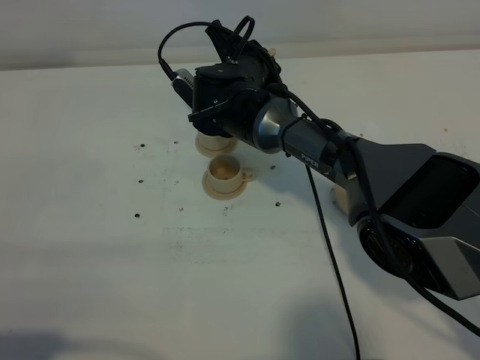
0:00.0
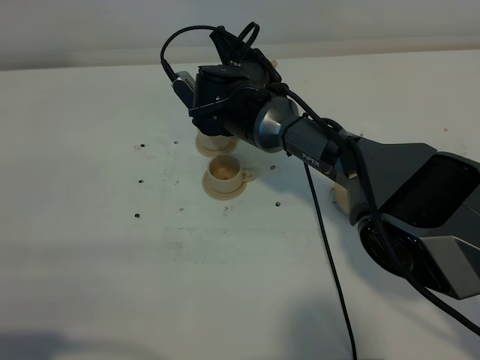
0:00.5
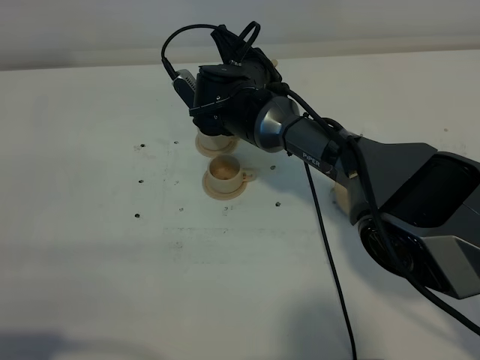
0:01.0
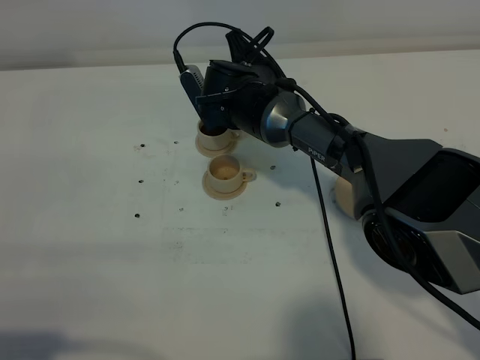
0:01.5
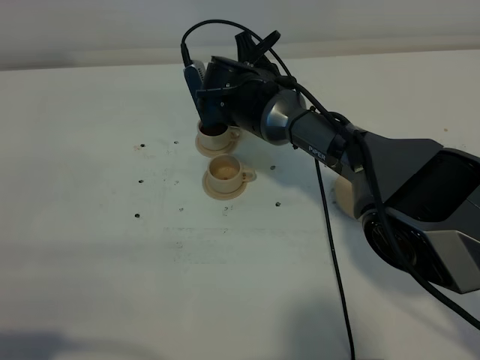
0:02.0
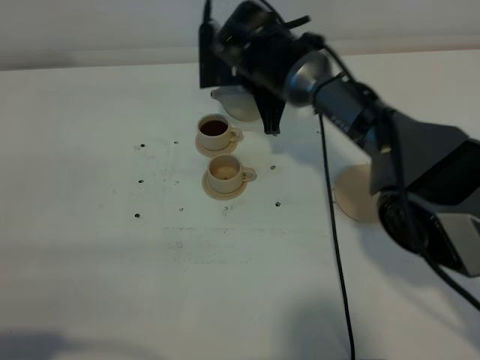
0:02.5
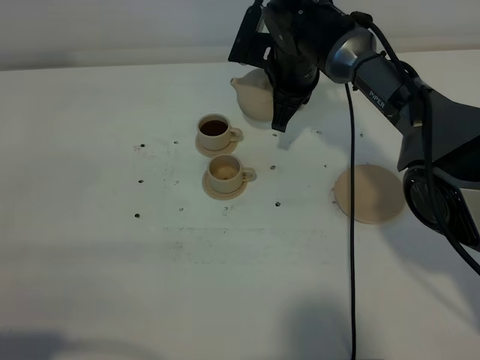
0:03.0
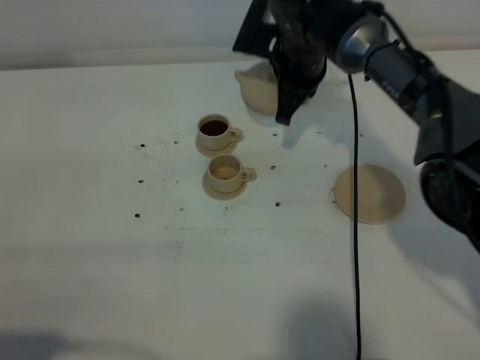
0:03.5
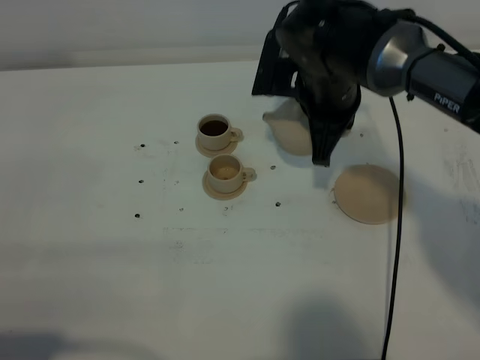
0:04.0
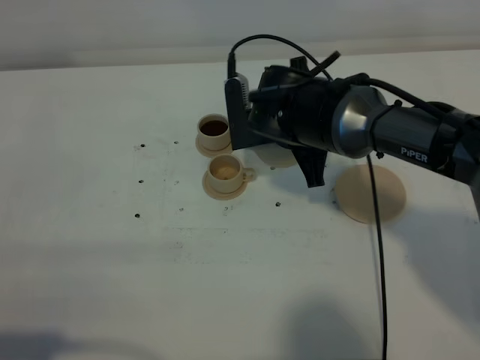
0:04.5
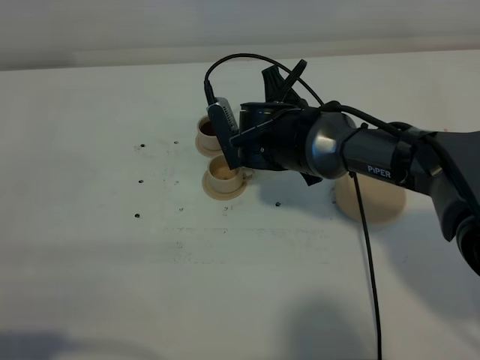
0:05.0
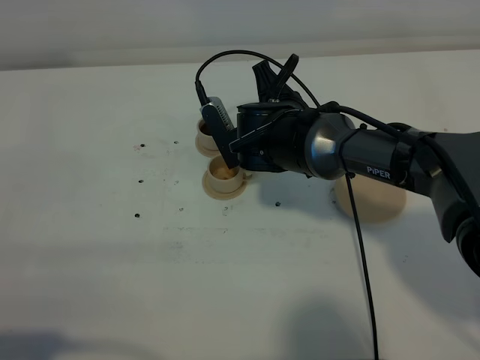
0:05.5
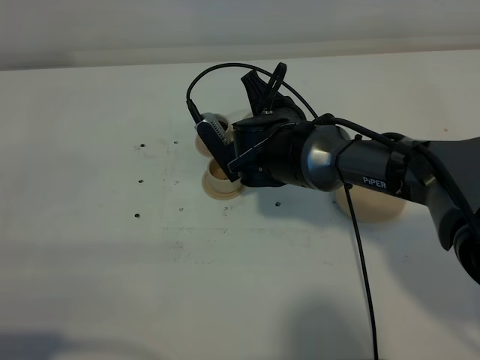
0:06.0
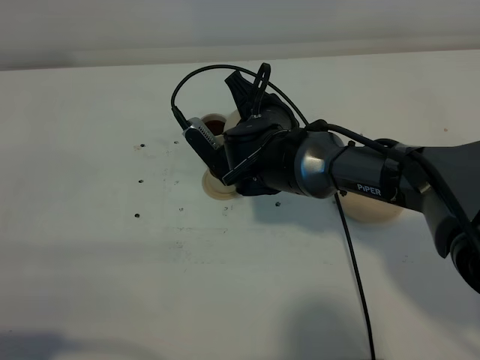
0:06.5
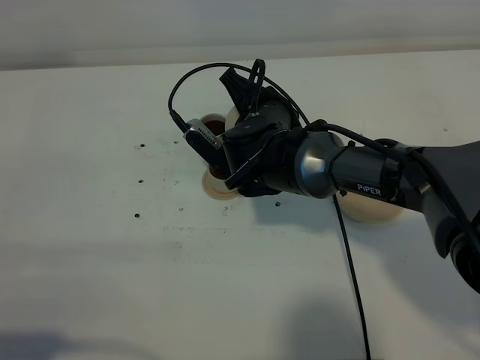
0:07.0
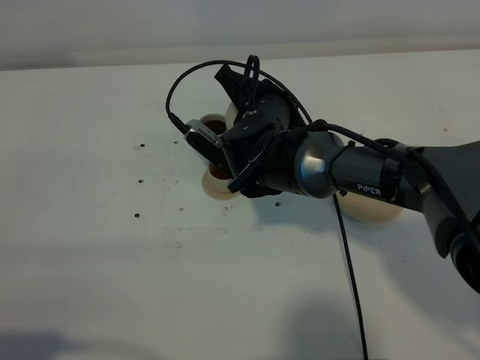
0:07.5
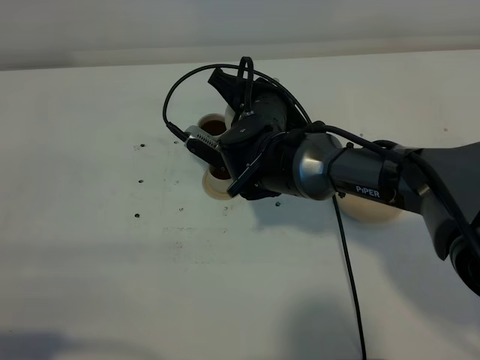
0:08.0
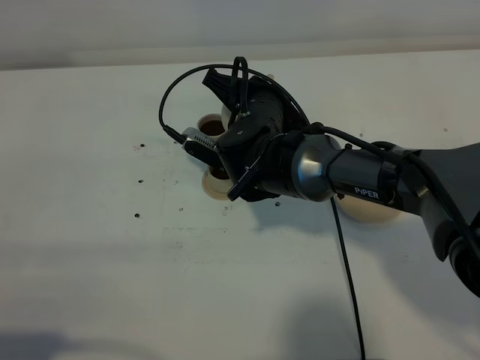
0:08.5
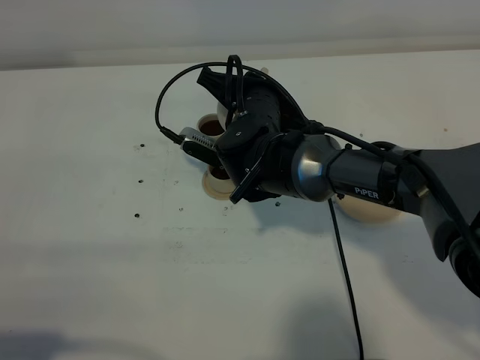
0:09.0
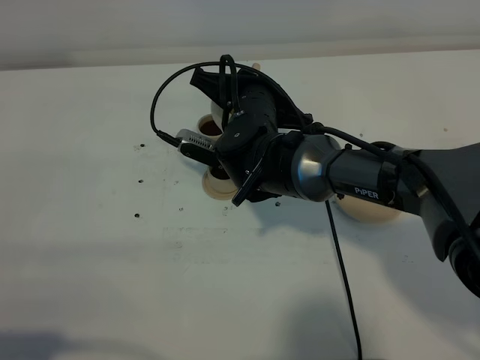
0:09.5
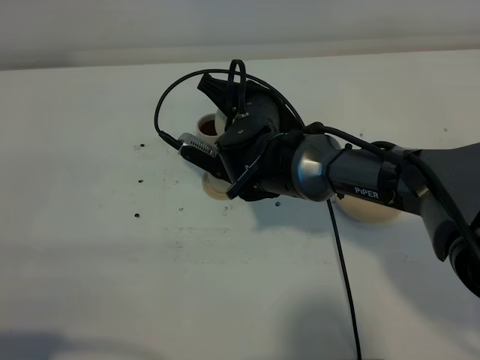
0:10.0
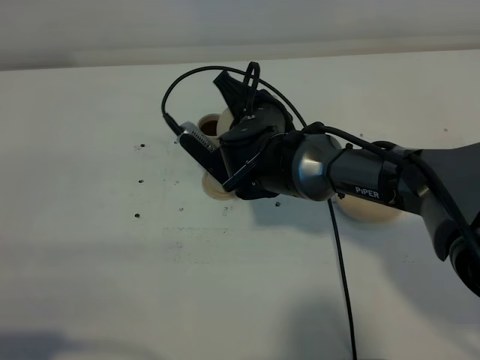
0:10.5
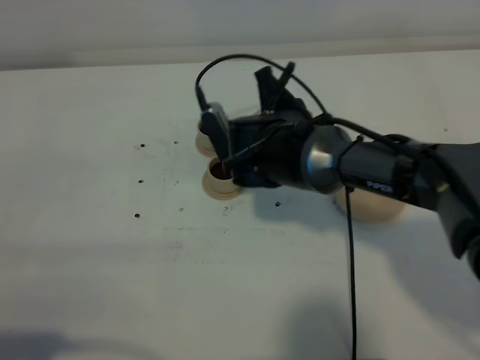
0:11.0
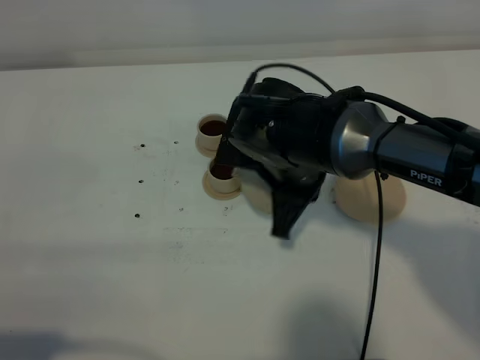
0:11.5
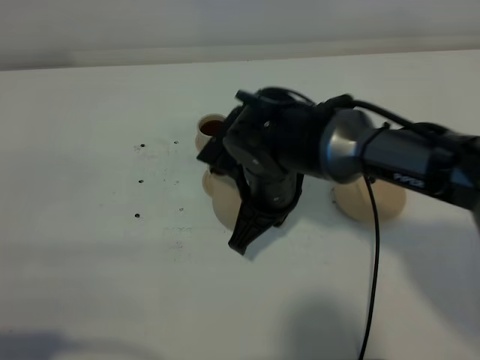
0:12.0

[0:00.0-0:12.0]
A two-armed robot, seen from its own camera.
Task of the whole recording: grasp the brown teapot and pour the tea into the two brown teacups one by one, put the brown teapot back in its original place.
Step, 0:00.0 to 0:02.0: Pour tea into the teacup with the right gripper.
Step, 0:02.5 to 0:11.0: Pour tea into the teacup with the right gripper.
0:02.0 to 0:04.0: The right gripper goes some 10 cm to the right, backward and upward.
0:04.0 to 0:06.0: The right gripper goes approximately 10 cm downward and to the left.
0:08.0 to 0:10.0: The grippers move only a little.
0:10.0 to 0:12.0: The right gripper moves backward, roughly 5 cm.

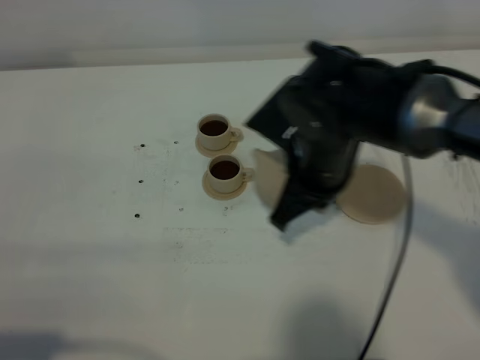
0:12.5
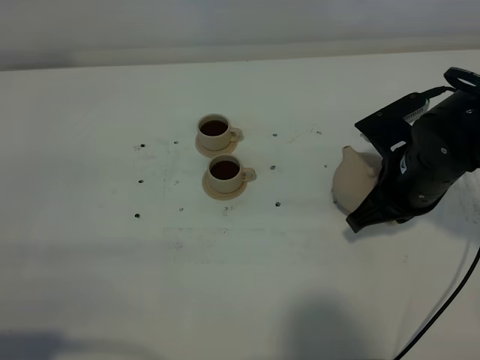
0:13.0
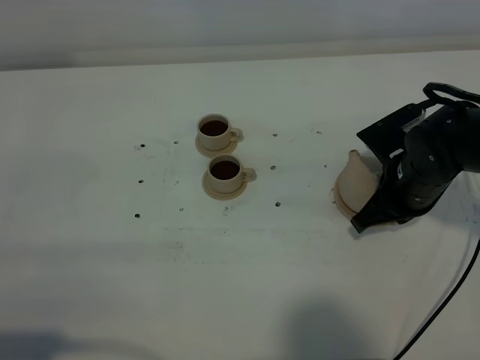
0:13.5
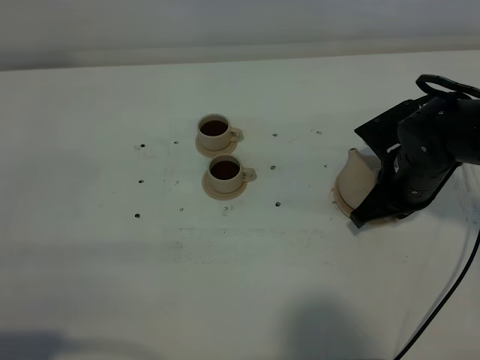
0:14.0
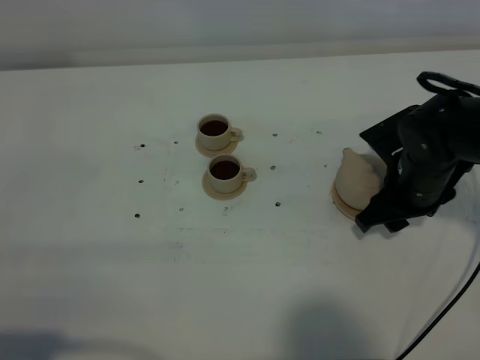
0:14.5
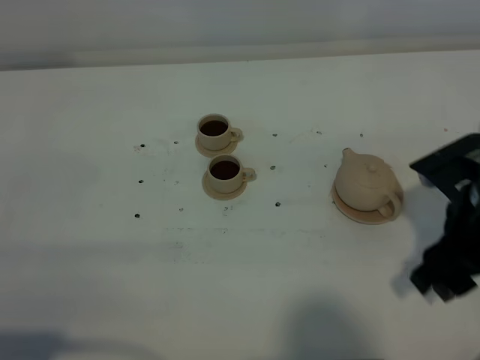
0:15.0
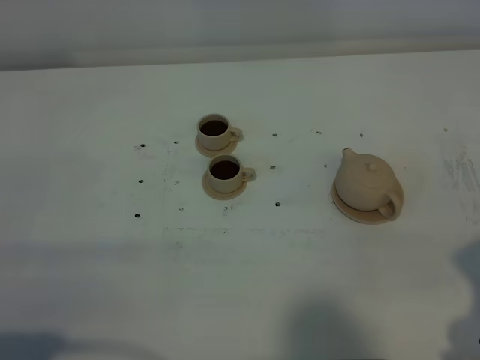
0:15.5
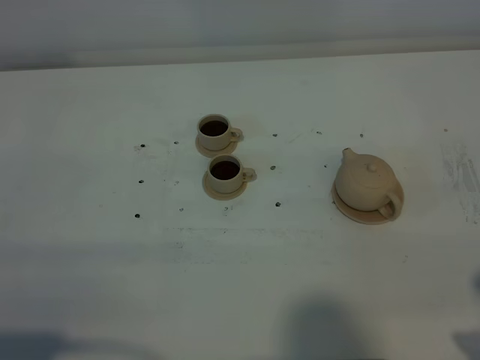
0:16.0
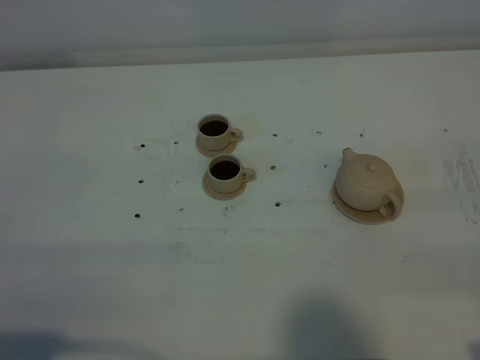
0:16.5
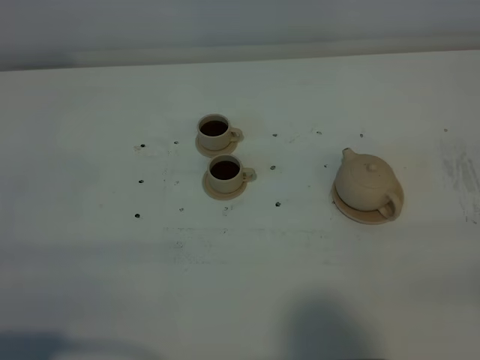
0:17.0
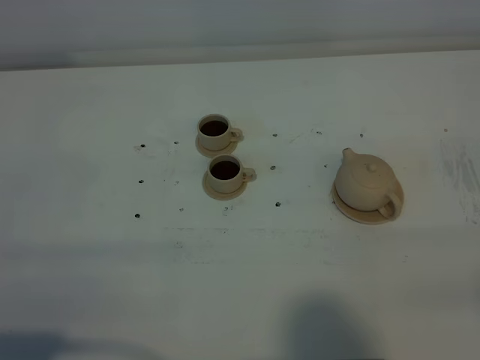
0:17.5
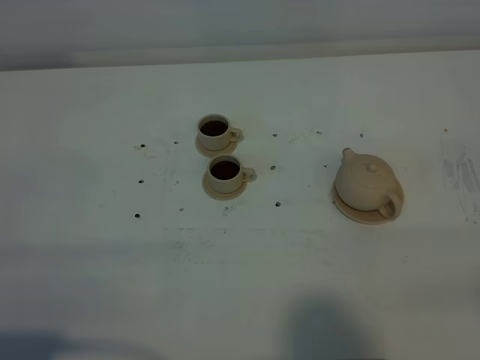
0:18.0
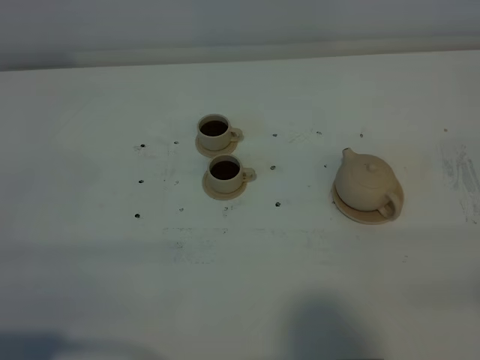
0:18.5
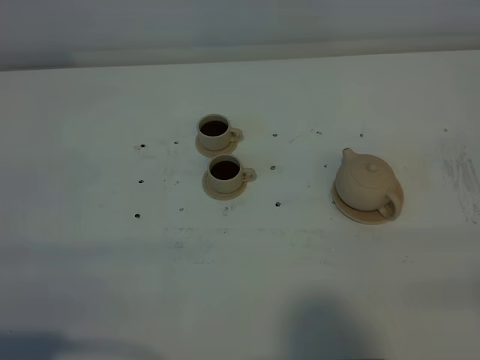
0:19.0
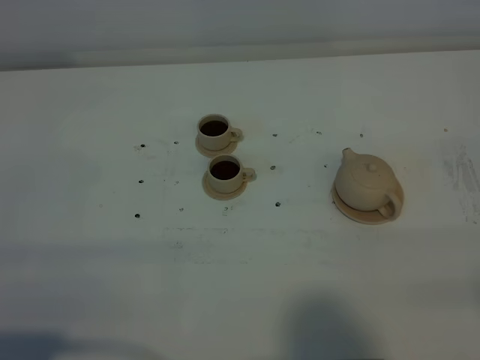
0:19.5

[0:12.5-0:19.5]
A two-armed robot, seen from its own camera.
Task of the whole recording: grasp the brown teapot and pour the tea into the two brown teacups one by one, put the brown teapot back in its original place.
0:12.5 to 0:14.5: The right gripper is displaced to the right and downward by about 15 cm, and opens its fingers.
0:14.5 to 0:16.0: The right gripper heads backward and upward, covering roughly 25 cm.
0:17.5 to 0:19.5: Neither gripper changes place.

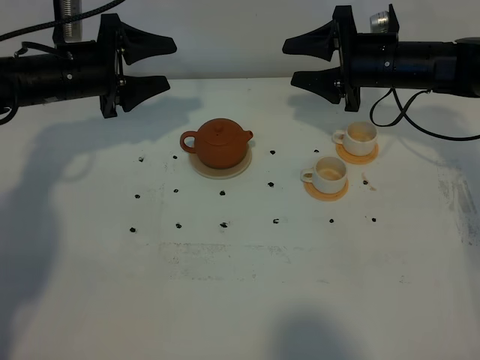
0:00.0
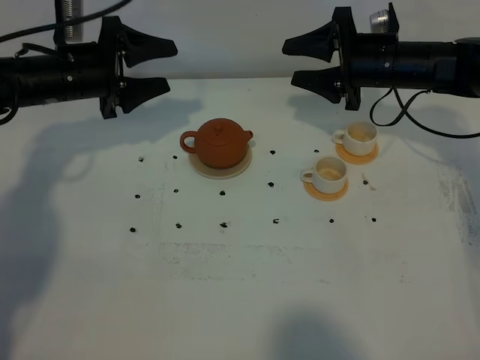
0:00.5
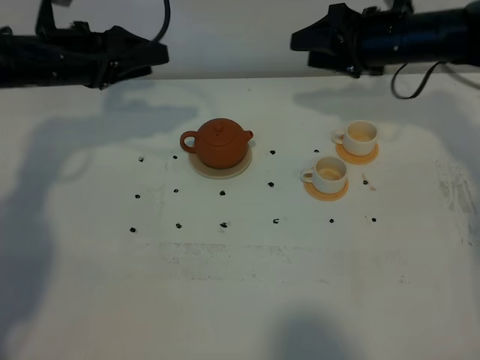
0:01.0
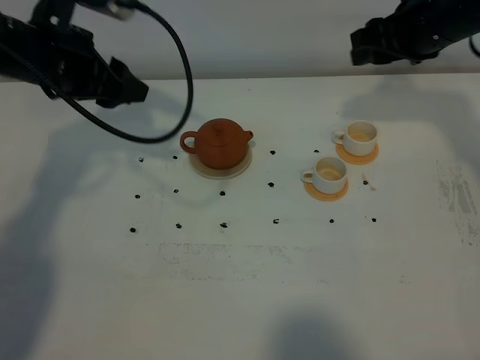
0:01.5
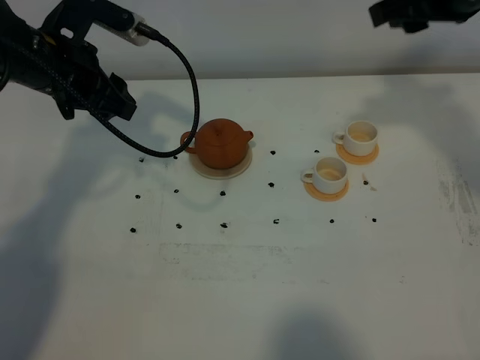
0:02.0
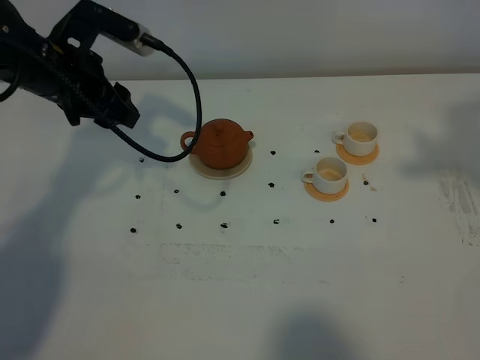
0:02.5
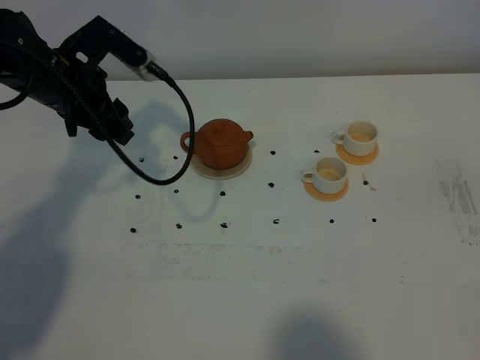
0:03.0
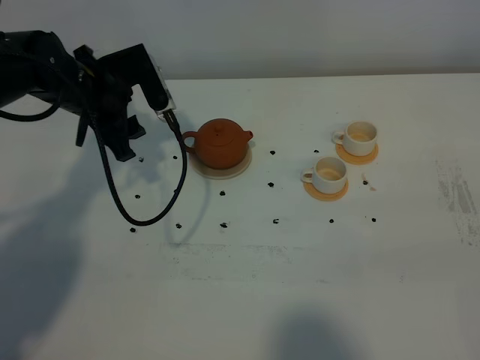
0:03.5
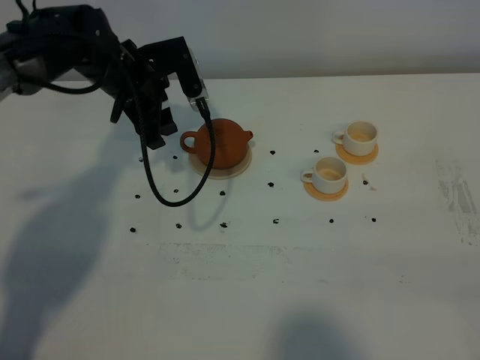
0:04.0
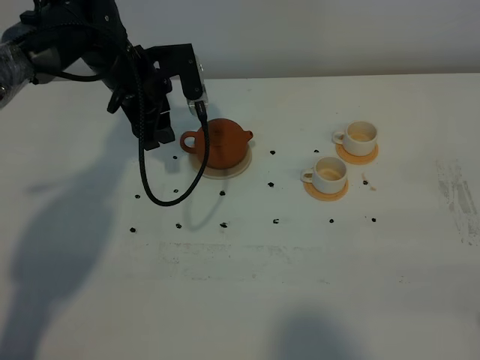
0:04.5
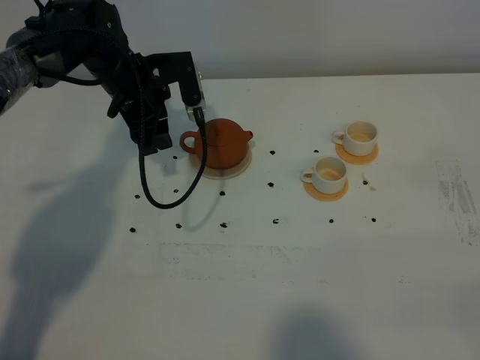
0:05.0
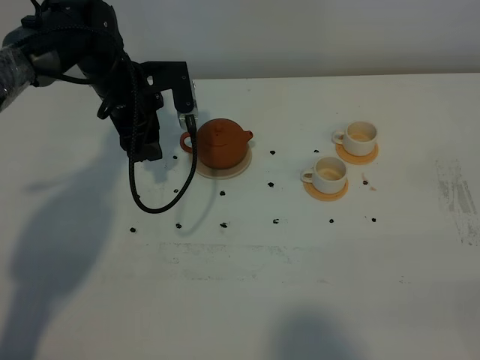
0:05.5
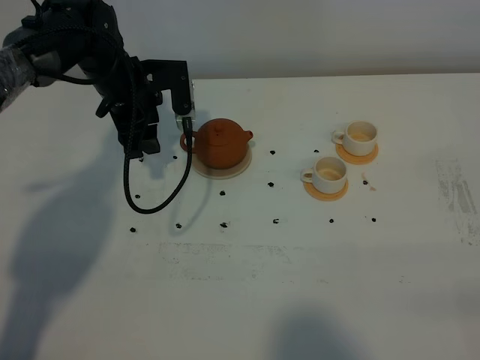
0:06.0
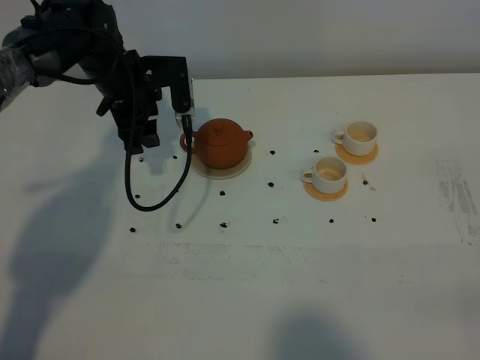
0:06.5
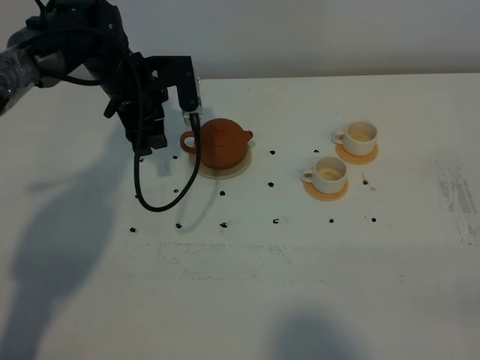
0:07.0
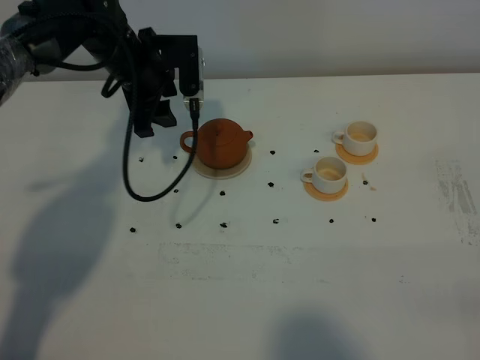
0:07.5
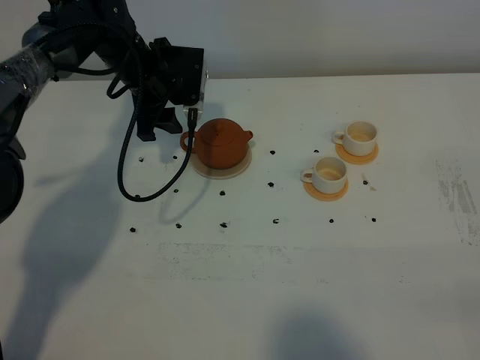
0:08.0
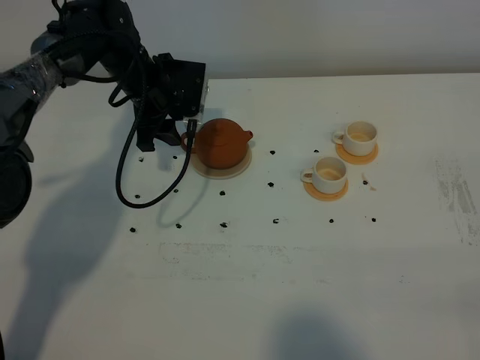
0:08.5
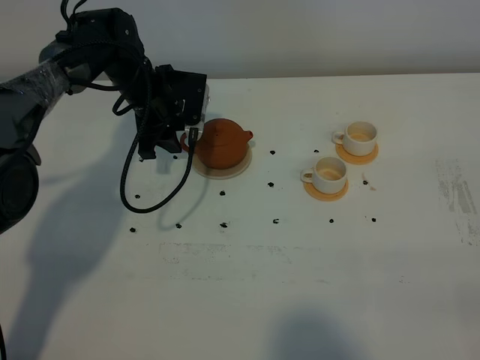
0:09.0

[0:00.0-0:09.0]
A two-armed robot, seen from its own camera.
Task of the whole recording: grasp the brown teapot and pour the tea into the two white teacups one by one, put the brown teapot back in its original place.
0:00.0 to 0:02.0: The left gripper moves upward and backward, approximately 10 cm, while the right gripper moves upward and backward, approximately 20 cm.
0:02.0 to 0:04.5: The left gripper heads forward, downward and to the right, covering approximately 10 cm. The right gripper goes about 30 cm backward.
0:04.5 to 0:07.0: The right gripper closes.
0:07.0 to 0:09.0: The grippers stay close to where they were, moving slightly.
